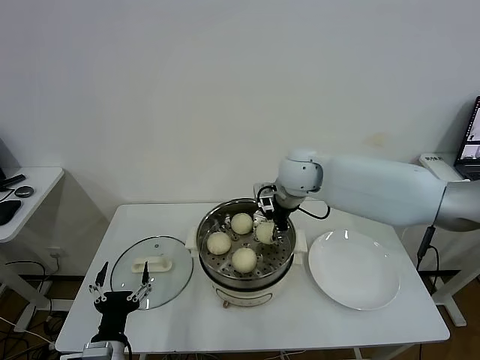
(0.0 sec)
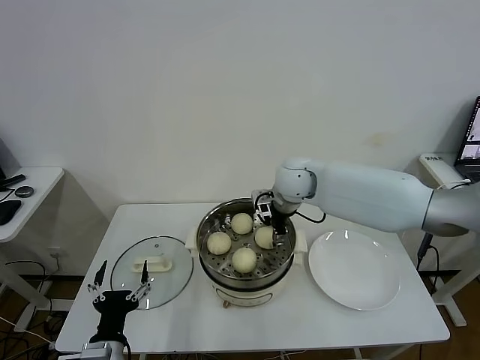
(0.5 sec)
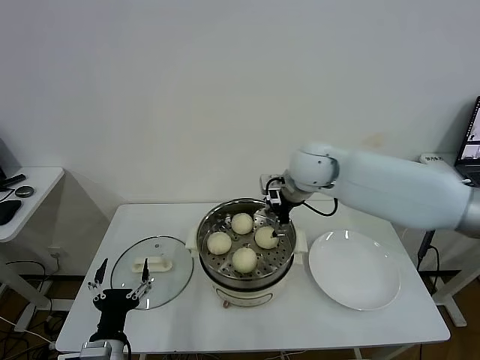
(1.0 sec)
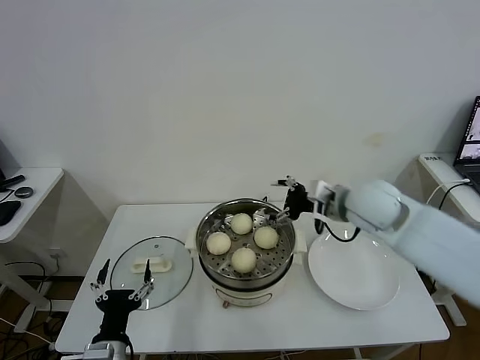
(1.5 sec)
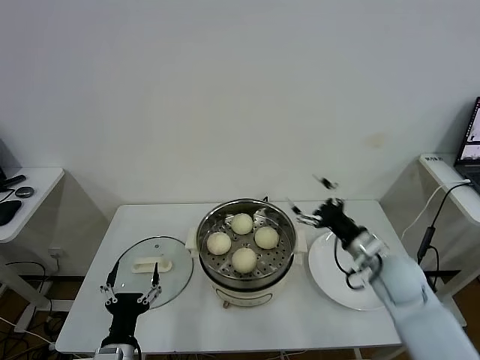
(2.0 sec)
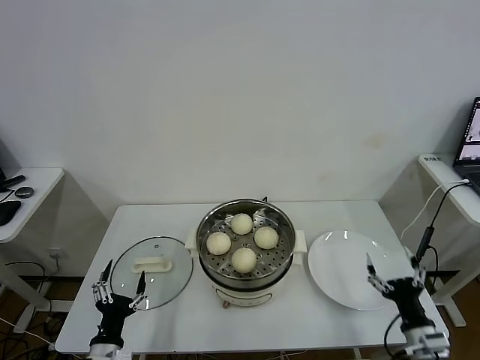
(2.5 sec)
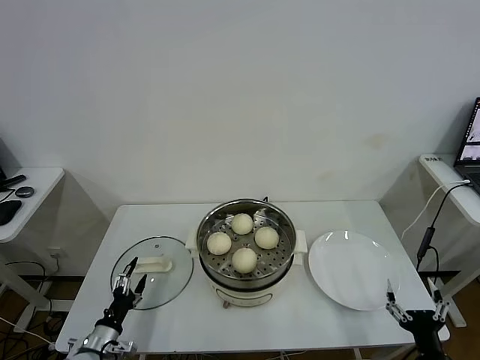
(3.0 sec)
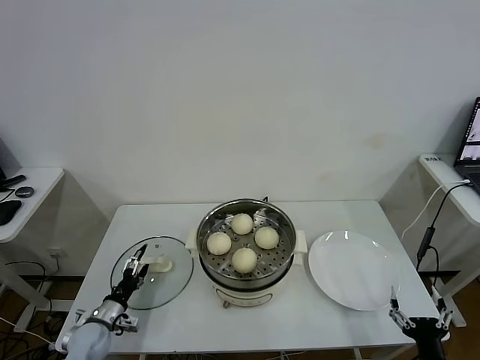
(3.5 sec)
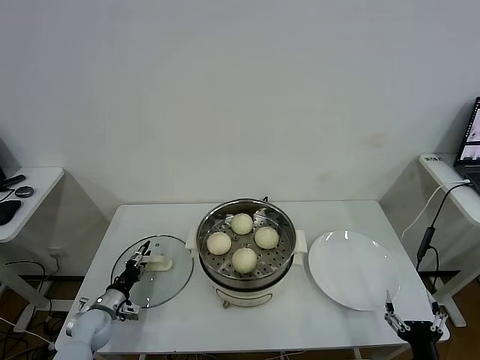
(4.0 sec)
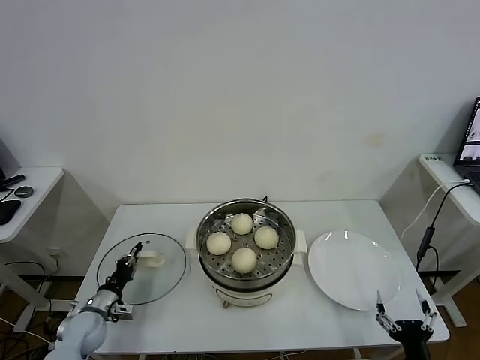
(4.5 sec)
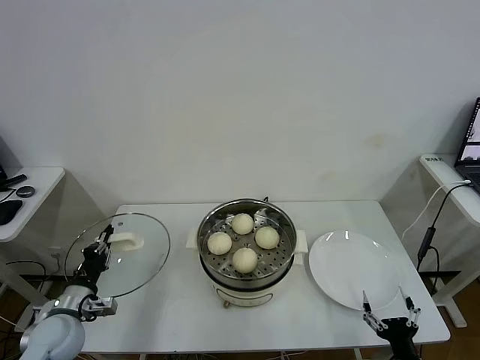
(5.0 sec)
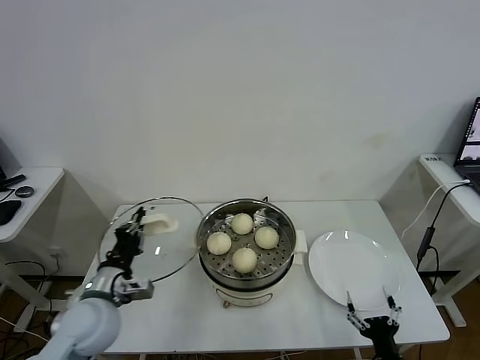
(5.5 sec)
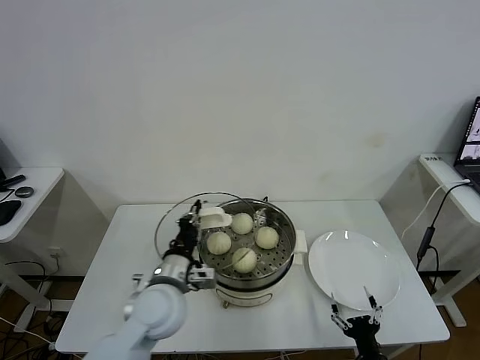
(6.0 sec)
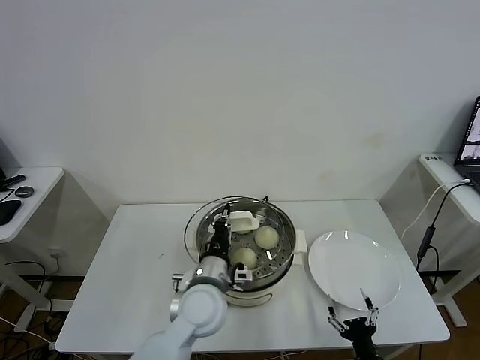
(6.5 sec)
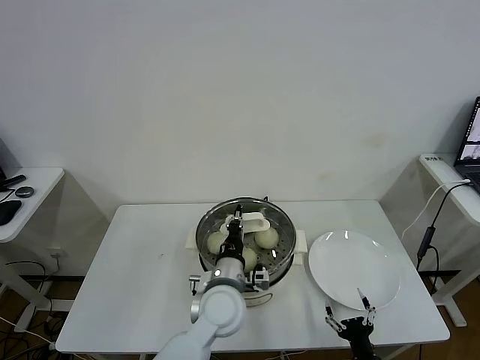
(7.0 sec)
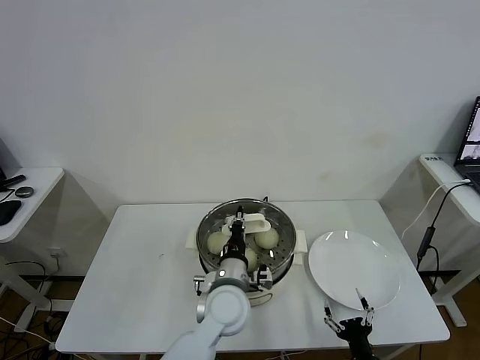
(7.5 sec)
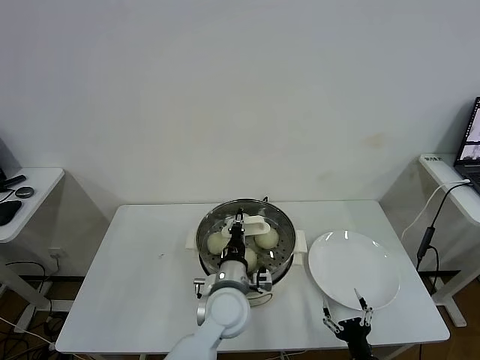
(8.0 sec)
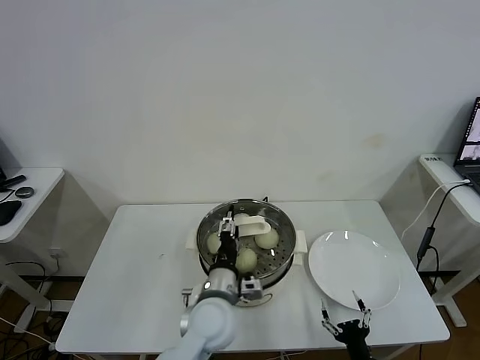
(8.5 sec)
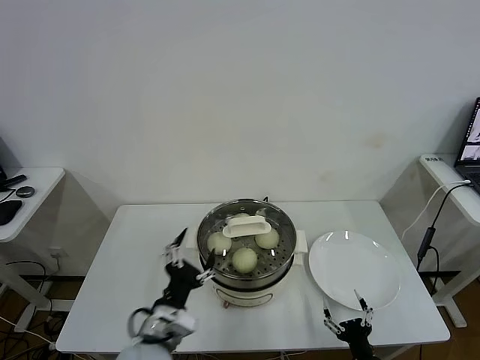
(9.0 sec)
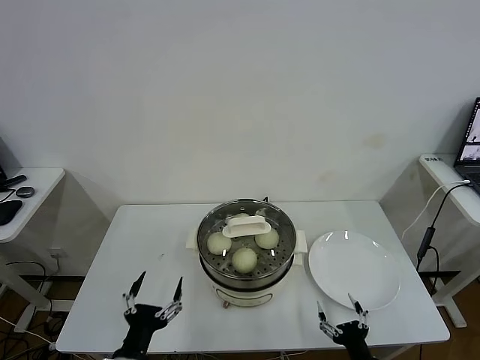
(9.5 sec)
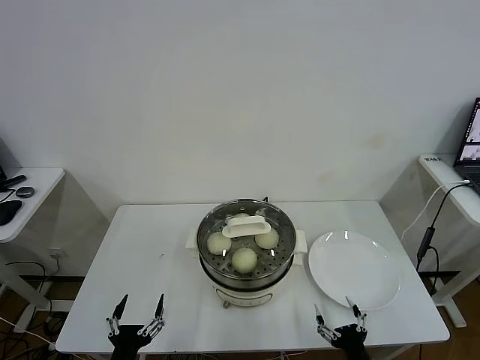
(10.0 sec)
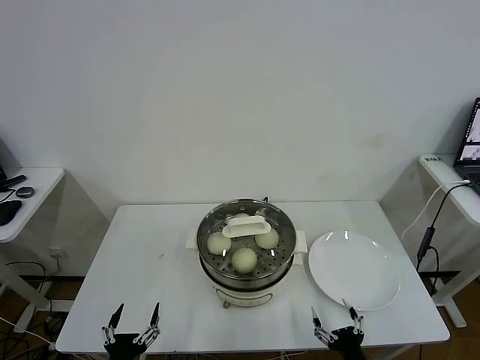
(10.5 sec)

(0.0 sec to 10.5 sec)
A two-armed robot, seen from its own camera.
Task of the whole recording: take steamed baozi put them in steamer.
Step, 1.5 sec - 4.5 sec: Grasp the pot lid with left gripper.
Step, 5.0 sec - 8.5 sec: Place the pot lid on the steamer with left gripper.
0.0 sec - 2.0 sec: The right gripper shifts roughly 25 cm to the right, backward and downward, and opens its fingers.
2.0 sec - 4.0 sec: The right gripper travels backward and downward by about 30 cm. Meanwhile the left gripper moves forward, to the left and downward, approximately 25 cm, and closes.
4.0 sec - 6.5 sec: The right gripper goes about 10 cm to the left and downward, while the left gripper moves to the right and upward, about 35 cm, and closes up.
6.5 sec - 8.5 sec: The left gripper opens.
8.5 sec - 10.5 sec: The left gripper heads to the left, backward and downward, covering roughly 30 cm, and opens its fingers.
